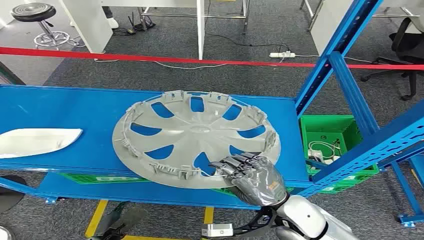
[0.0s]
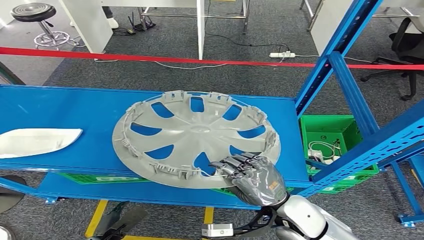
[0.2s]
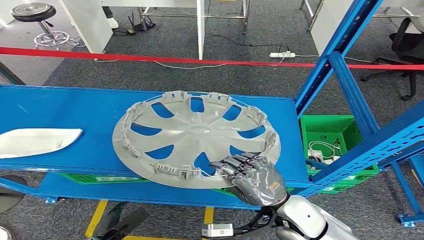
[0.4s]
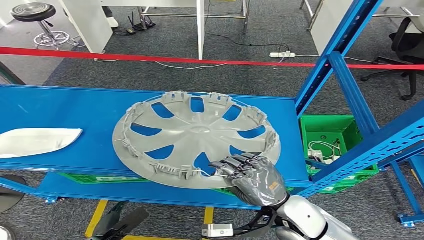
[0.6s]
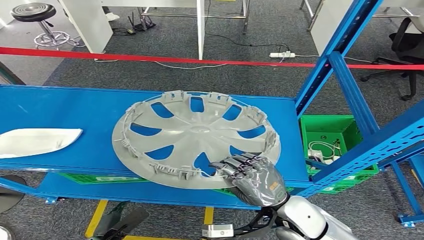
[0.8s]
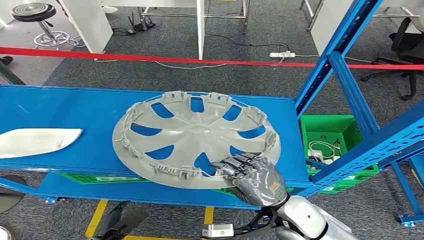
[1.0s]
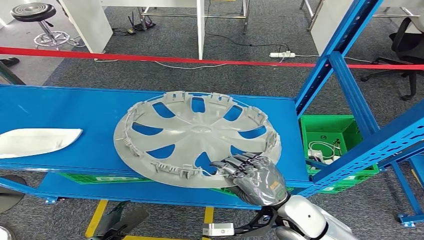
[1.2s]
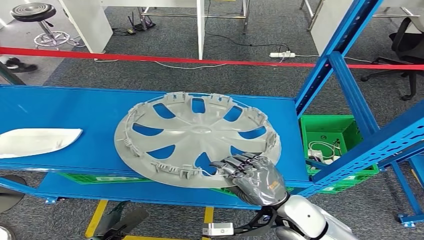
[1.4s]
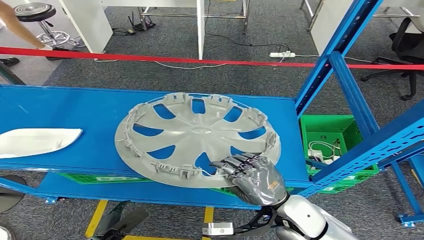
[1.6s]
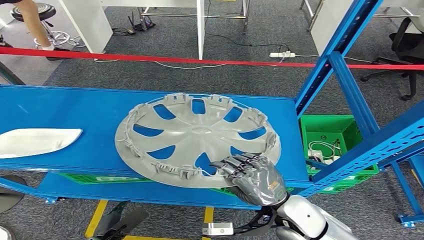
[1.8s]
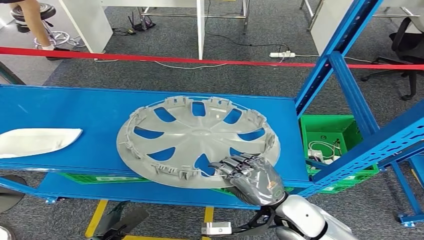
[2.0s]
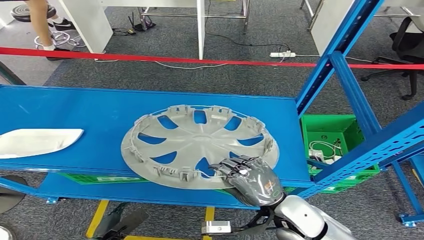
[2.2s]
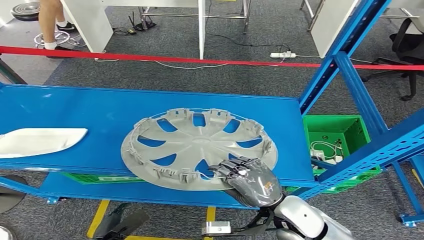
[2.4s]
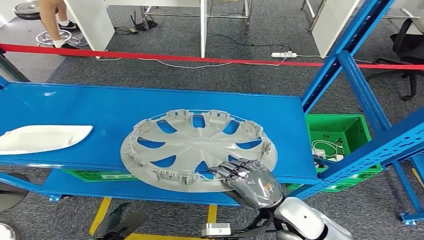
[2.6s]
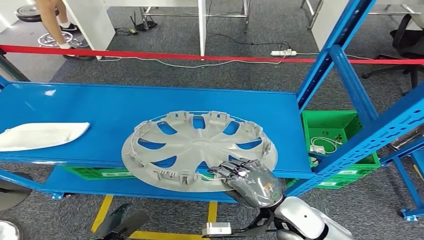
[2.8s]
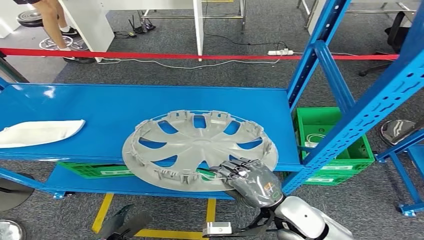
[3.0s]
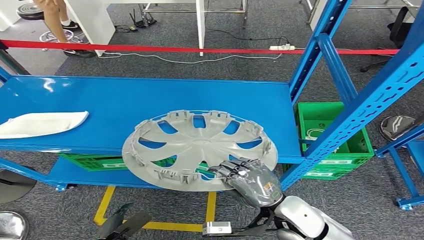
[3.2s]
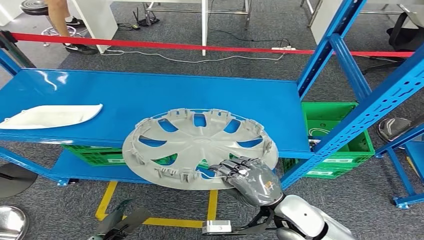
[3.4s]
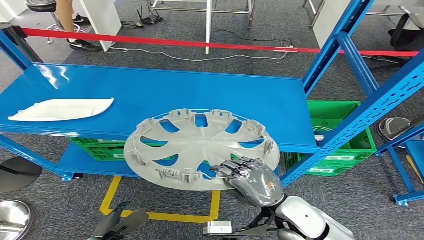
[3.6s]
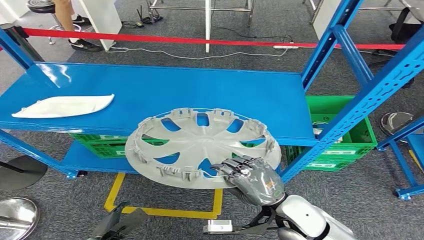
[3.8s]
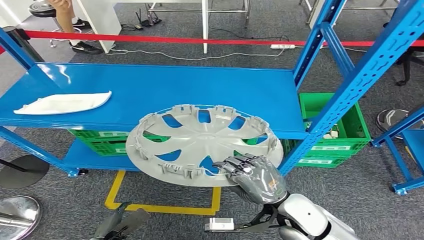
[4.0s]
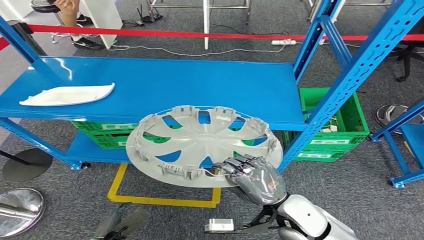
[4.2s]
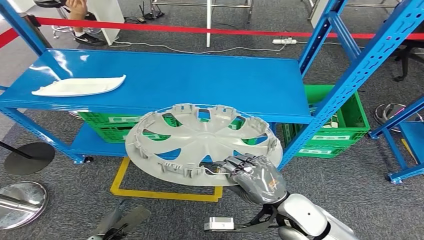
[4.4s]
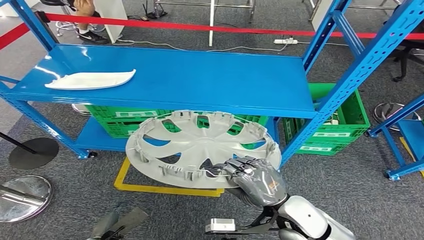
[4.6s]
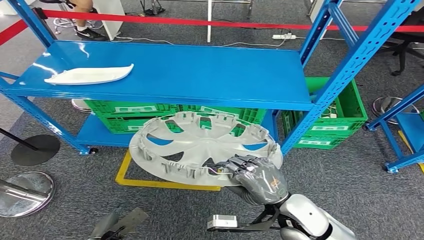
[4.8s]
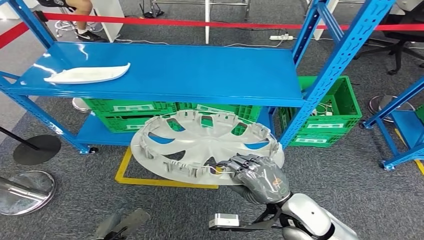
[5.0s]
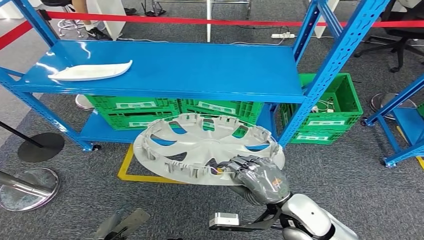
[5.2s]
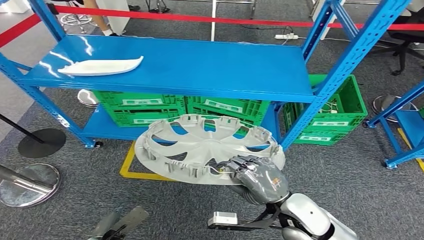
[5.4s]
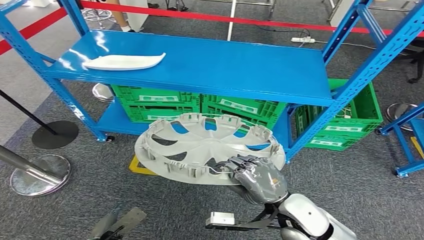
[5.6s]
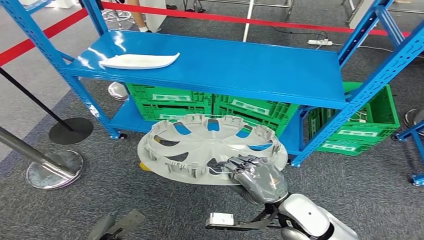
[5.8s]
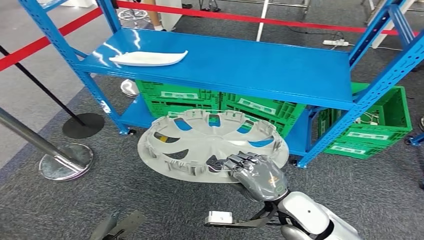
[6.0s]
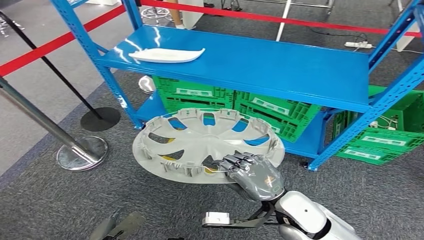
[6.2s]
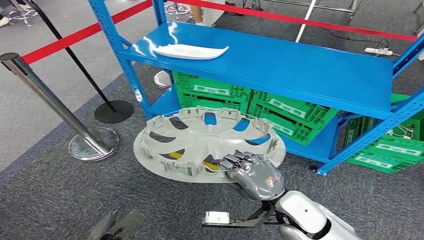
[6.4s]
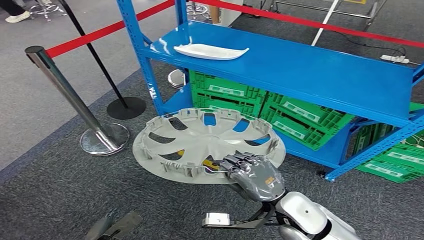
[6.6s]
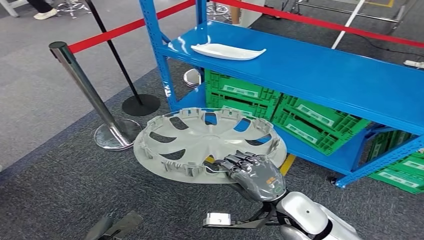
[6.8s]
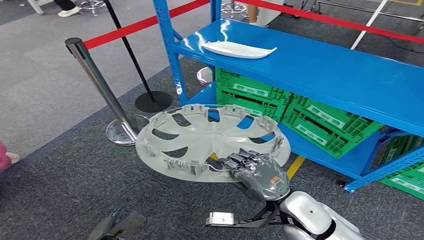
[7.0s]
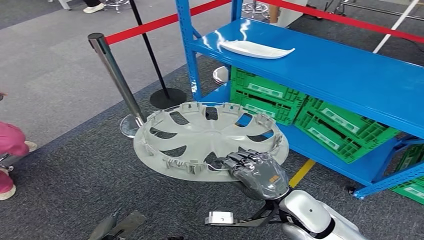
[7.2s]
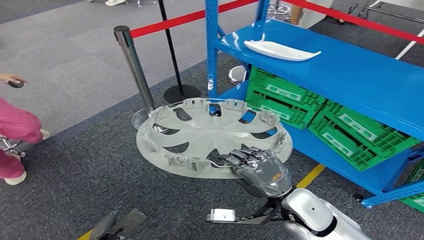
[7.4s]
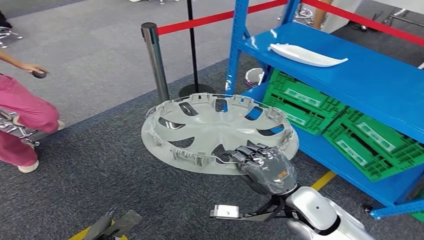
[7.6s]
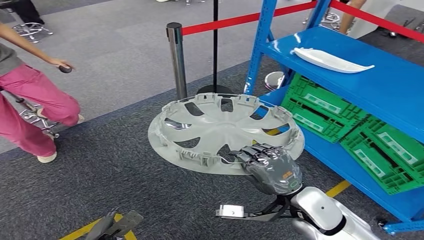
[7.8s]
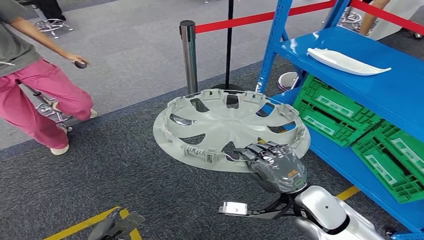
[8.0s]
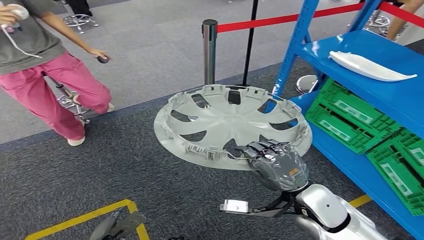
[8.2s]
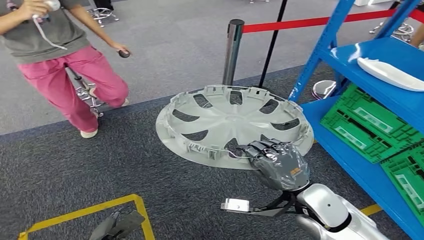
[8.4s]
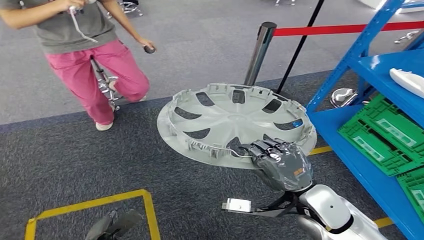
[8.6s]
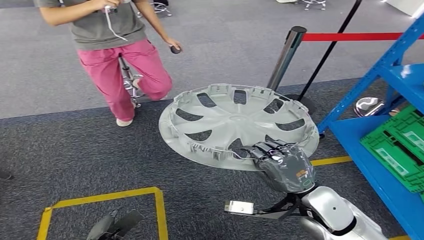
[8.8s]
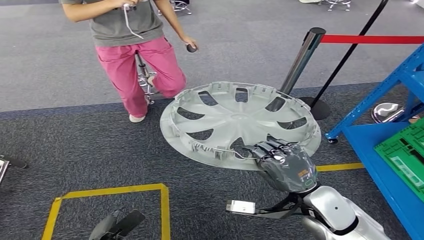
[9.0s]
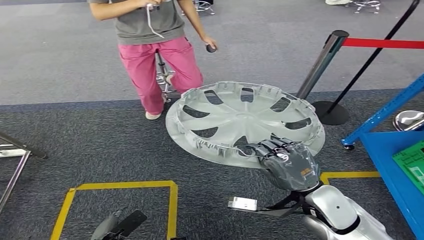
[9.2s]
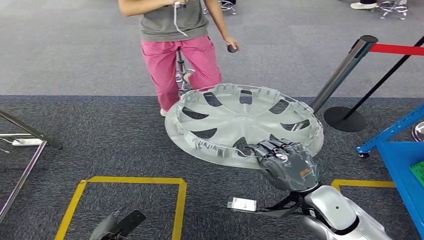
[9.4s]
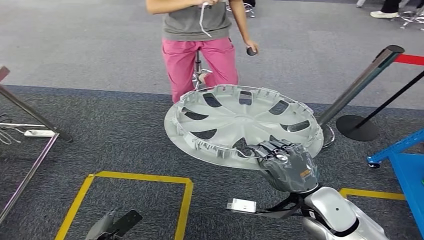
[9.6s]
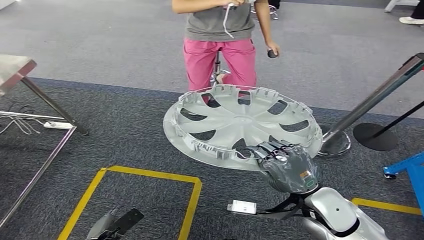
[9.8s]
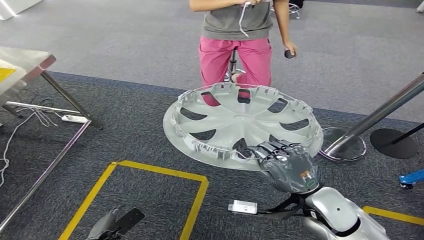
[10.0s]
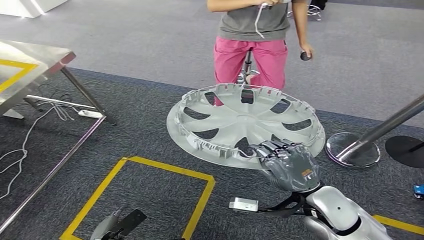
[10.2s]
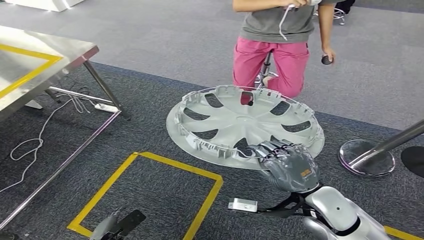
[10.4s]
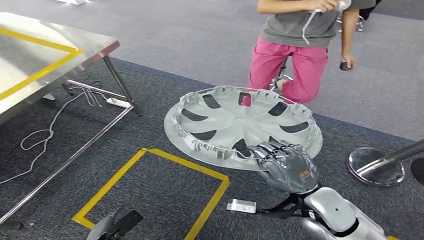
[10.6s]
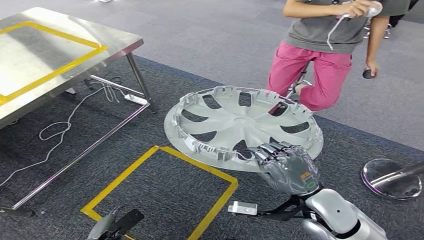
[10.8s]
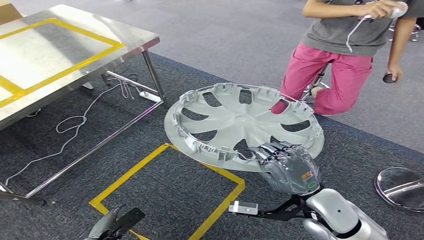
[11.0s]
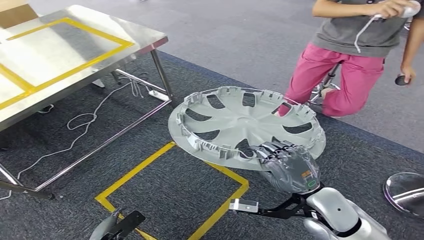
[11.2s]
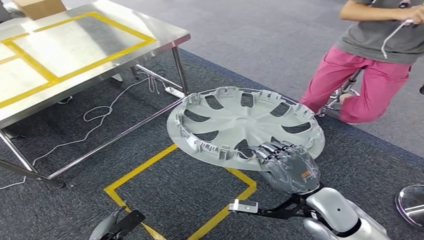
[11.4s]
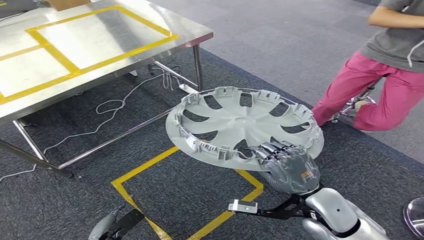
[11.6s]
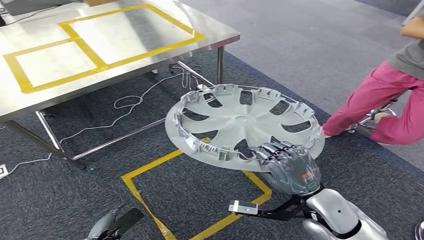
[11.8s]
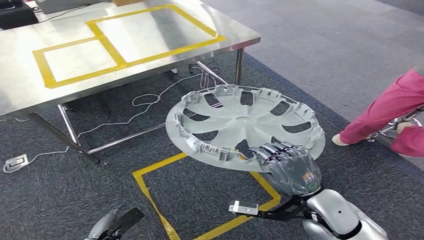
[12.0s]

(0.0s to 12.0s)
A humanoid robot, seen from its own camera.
Step, 0.0s - 3.6s: Pick up the small parts from the shelf.

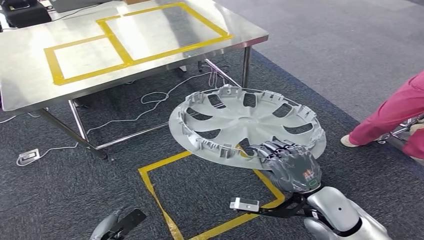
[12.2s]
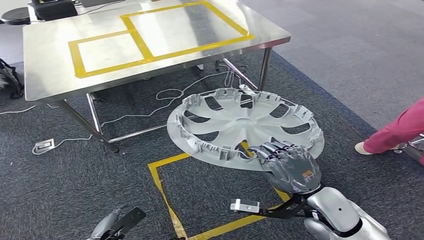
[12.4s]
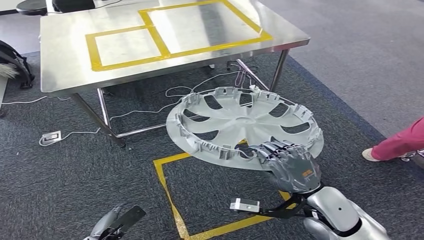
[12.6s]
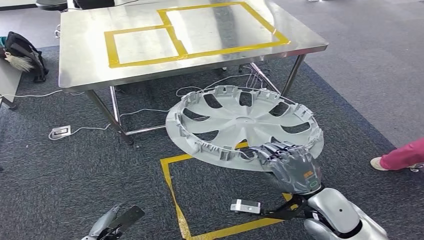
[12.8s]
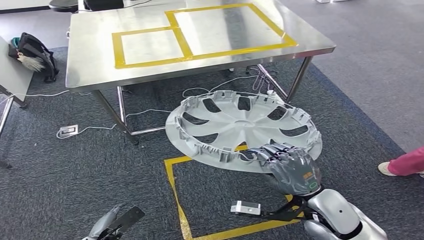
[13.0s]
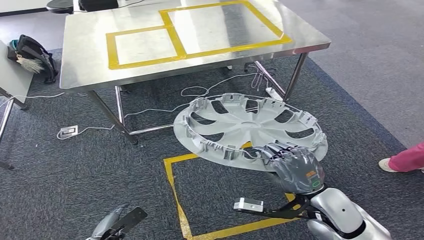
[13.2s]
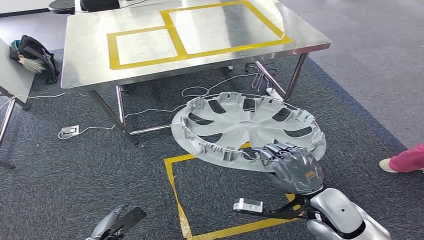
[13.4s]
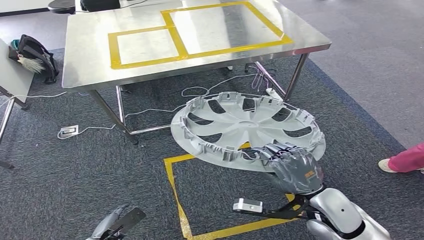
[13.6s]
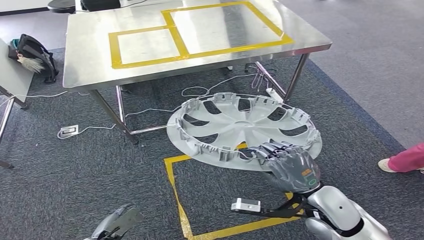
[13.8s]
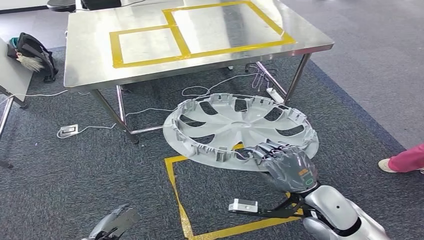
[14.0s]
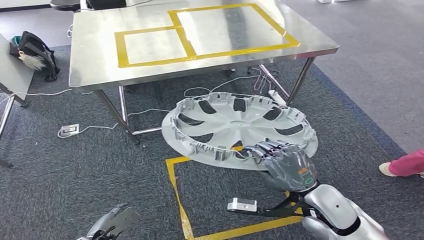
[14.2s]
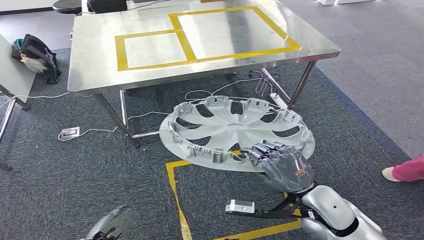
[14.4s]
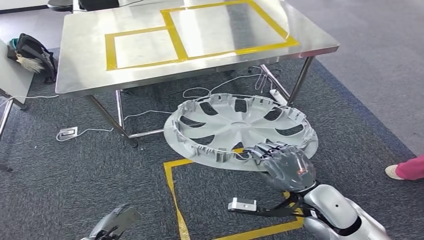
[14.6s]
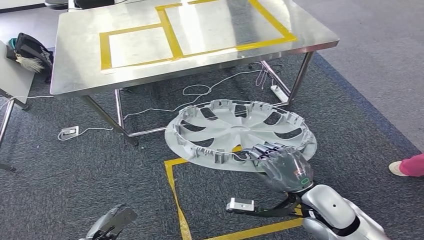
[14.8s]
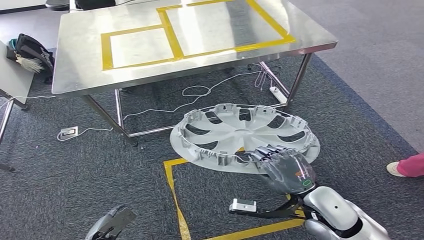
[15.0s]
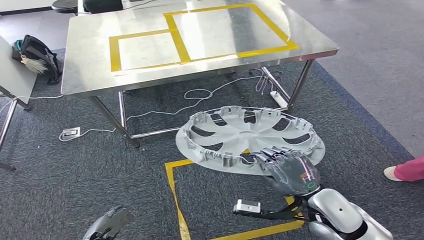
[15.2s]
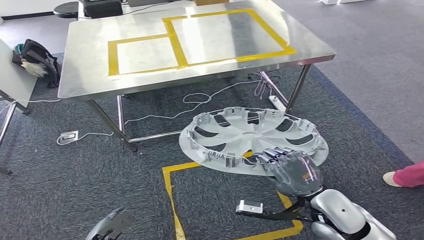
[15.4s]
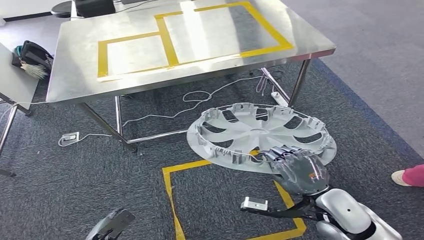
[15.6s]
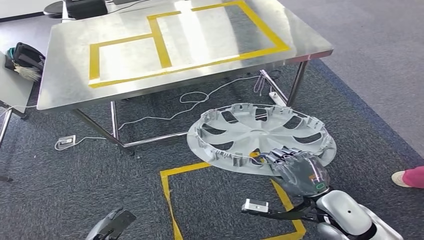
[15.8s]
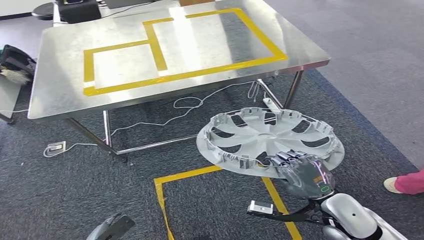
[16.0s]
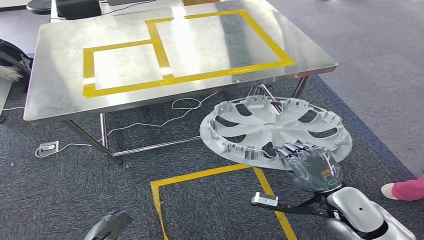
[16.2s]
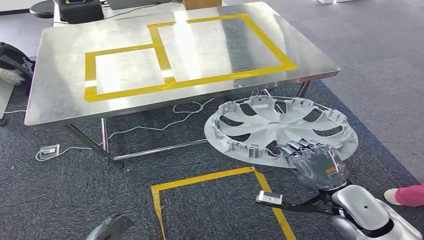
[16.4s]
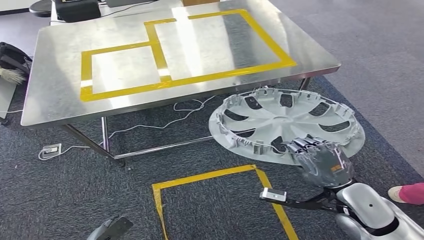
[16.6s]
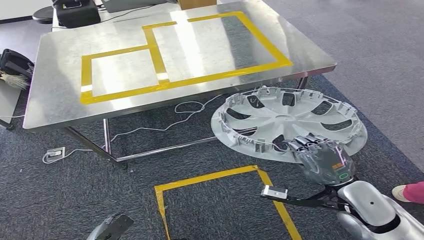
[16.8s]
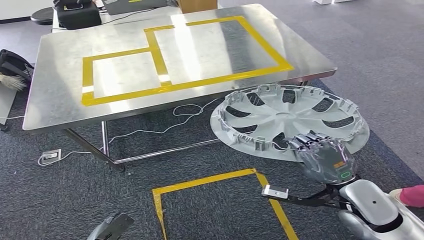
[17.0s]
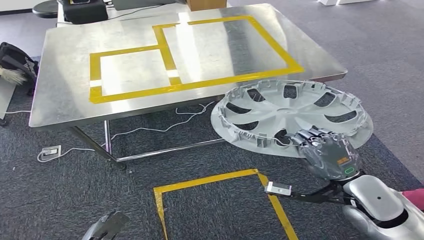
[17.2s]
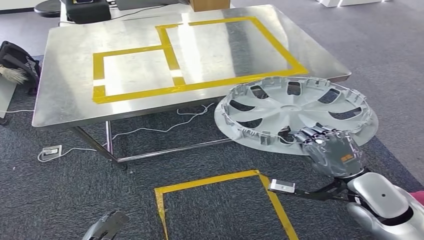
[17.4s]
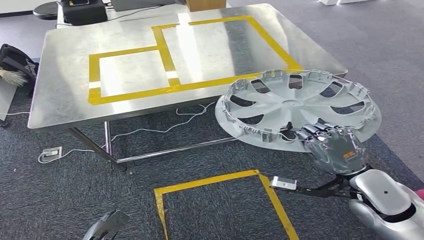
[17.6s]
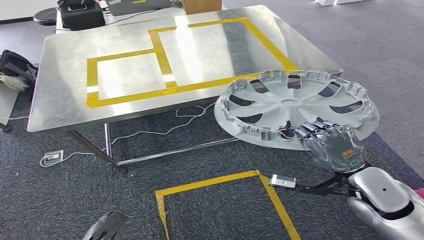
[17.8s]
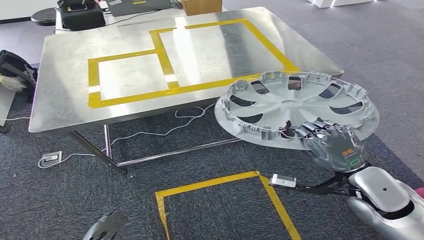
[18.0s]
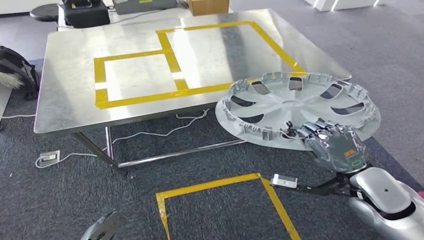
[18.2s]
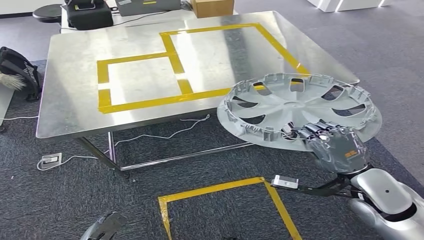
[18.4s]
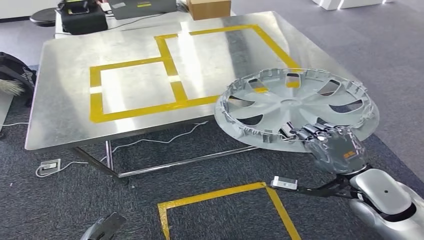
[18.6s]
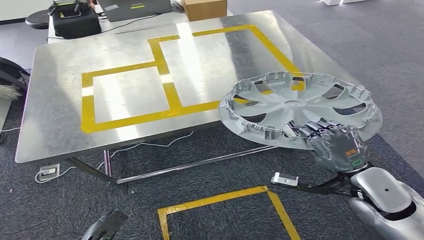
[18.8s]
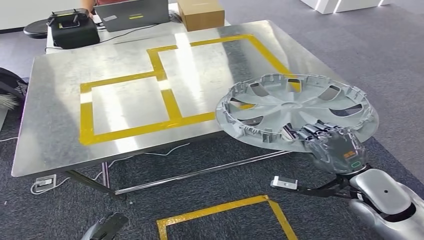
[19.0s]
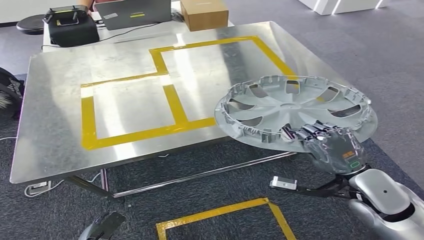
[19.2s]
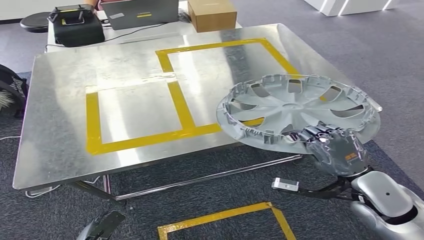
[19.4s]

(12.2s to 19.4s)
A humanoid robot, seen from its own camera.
Step, 12.2s - 18.2s: Move the small parts to the workbench.
